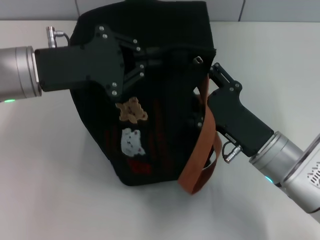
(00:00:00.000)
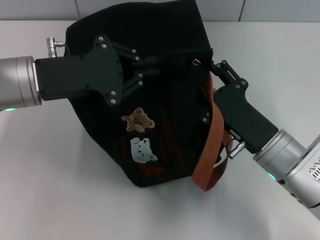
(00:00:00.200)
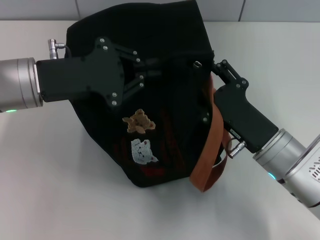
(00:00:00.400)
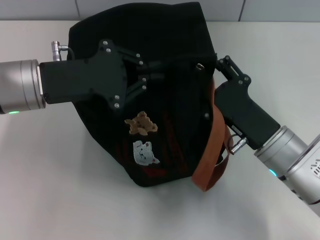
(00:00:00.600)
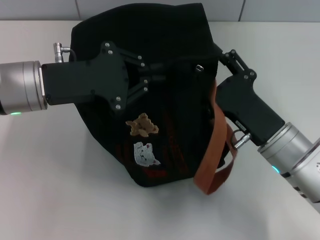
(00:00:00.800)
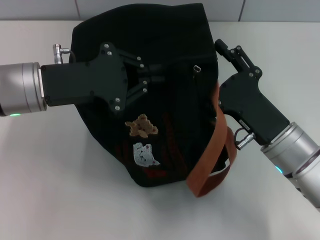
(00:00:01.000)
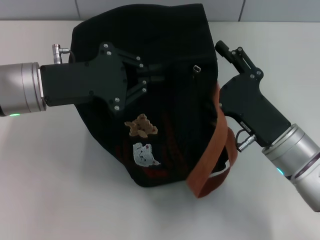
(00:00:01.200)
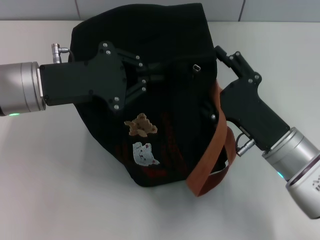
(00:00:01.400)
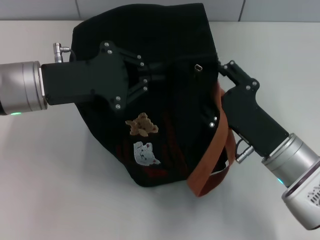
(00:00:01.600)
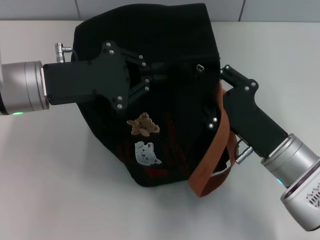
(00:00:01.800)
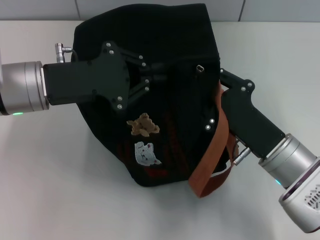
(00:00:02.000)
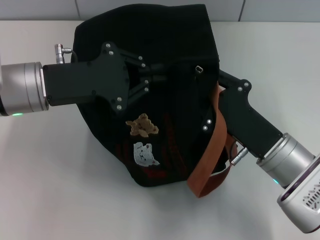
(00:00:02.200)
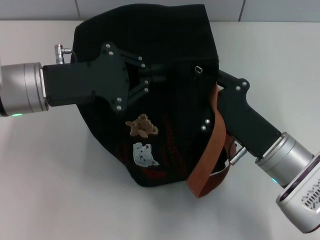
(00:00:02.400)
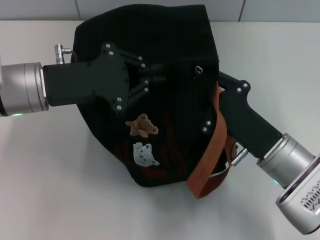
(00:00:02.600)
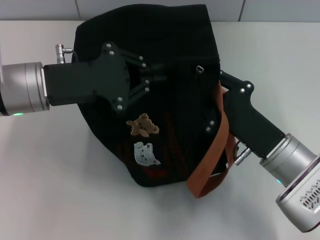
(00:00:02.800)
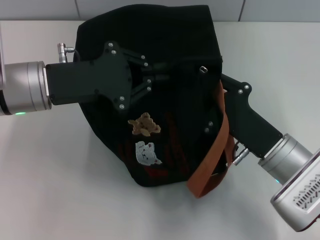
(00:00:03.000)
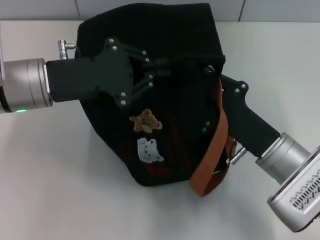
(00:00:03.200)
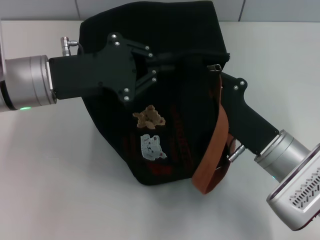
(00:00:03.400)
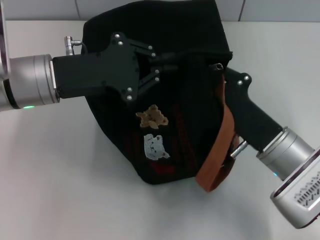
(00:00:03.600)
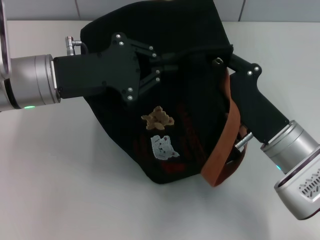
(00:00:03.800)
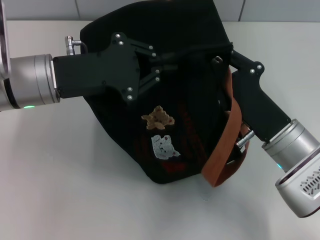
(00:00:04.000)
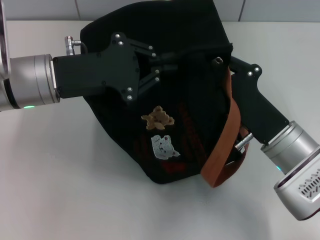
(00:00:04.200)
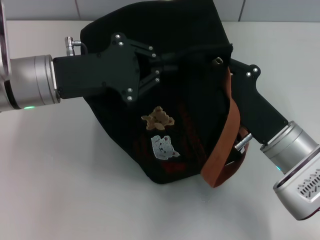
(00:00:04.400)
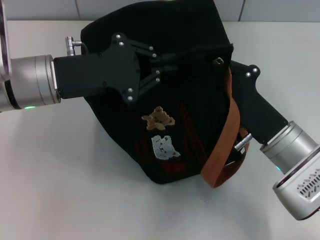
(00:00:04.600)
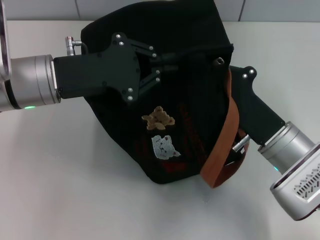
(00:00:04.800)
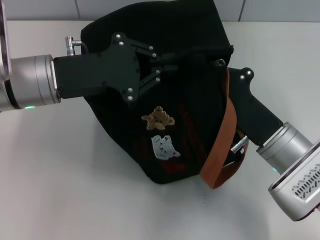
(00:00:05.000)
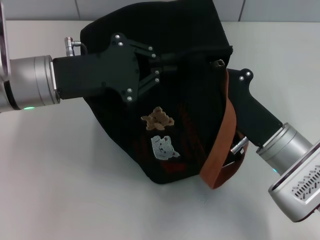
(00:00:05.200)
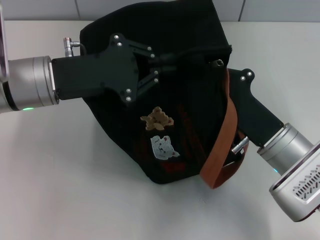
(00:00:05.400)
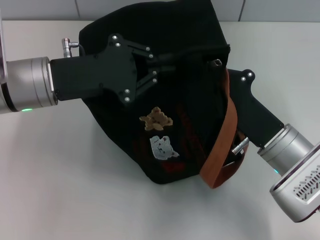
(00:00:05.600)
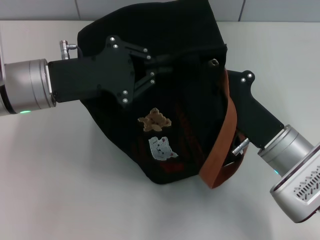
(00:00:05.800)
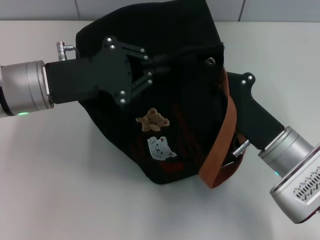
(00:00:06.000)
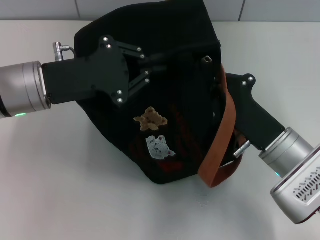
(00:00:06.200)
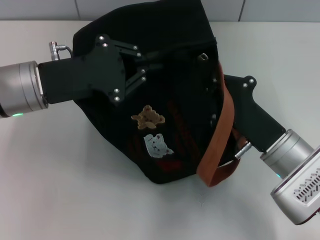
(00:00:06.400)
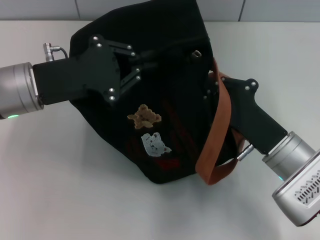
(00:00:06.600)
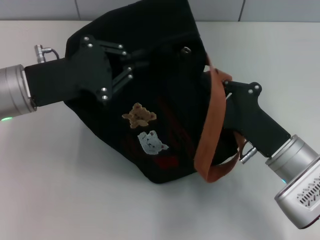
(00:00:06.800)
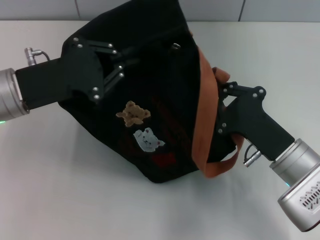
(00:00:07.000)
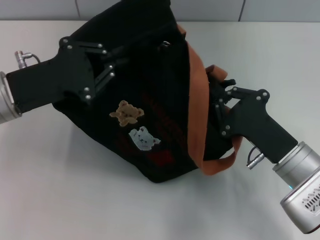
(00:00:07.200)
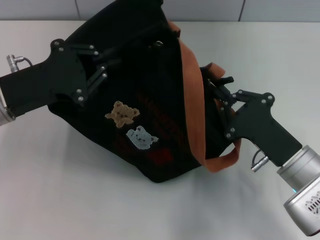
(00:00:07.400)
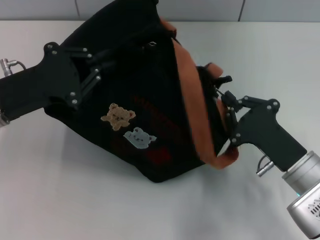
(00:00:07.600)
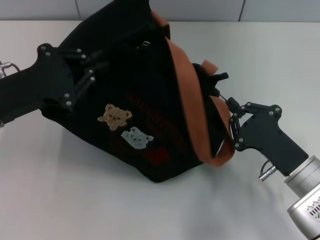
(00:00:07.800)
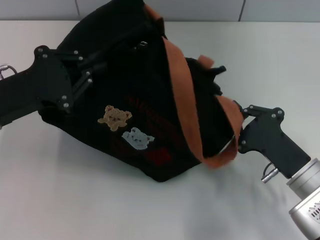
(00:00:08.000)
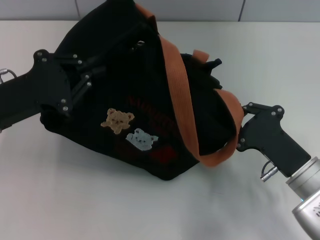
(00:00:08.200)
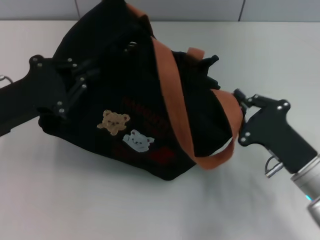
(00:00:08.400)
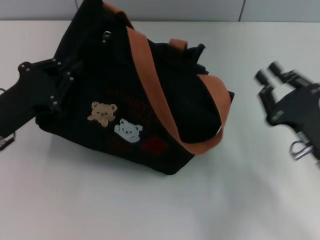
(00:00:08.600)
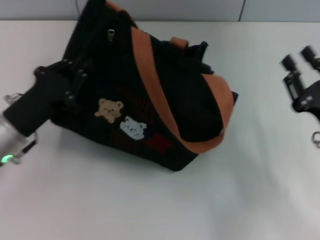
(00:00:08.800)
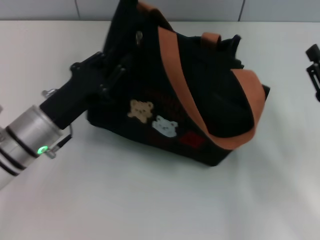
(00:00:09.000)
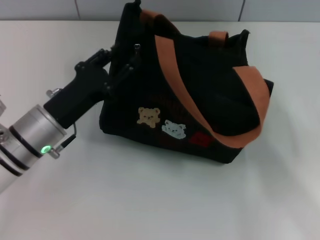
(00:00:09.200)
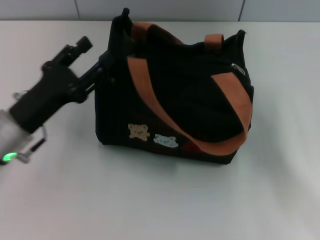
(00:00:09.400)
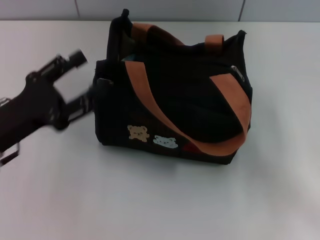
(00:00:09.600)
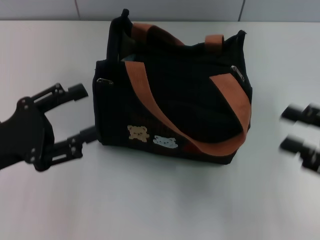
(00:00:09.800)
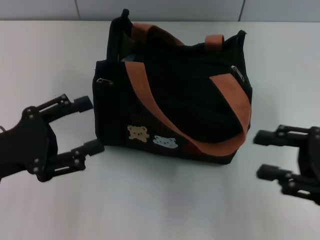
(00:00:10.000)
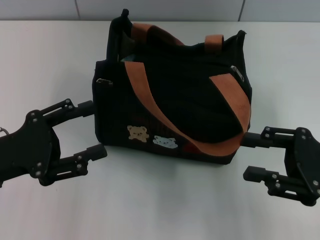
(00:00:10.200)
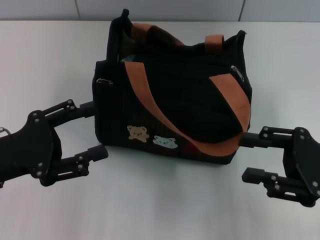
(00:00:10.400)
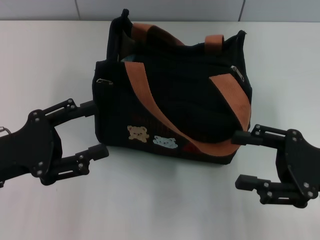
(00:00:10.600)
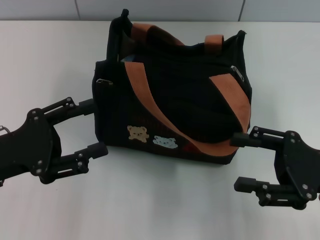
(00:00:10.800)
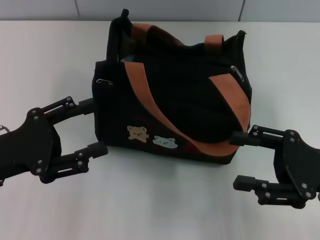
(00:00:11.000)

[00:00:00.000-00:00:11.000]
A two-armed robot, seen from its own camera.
Step, 00:00:00.000 to 00:00:08.200: Pull open the zipper with your right hand.
Step, 00:00:08.600 to 00:00:09.200: Grab the bag with your left hand.
00:00:01.600 to 00:00:03.200: The right gripper closes.
00:00:03.200 to 00:00:06.200: The grippers stay close to where they were, moving slightly.
00:00:06.200 to 00:00:07.800: The left gripper shifts roughly 5 cm to the left, while the right gripper shifts by roughly 5 cm.
00:00:07.800 to 00:00:09.400: The right gripper moves to the right, approximately 10 cm, and opens up; the left gripper moves downward, about 5 cm, and opens up.
00:00:09.400 to 00:00:11.000: The left gripper ends up about 10 cm from where it was. Meanwhile the right gripper is displaced to the left by about 5 cm.
